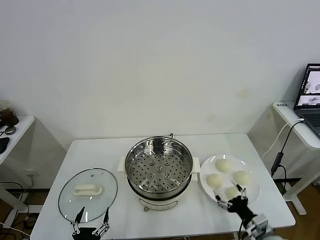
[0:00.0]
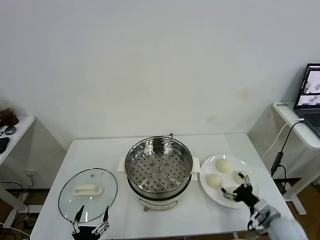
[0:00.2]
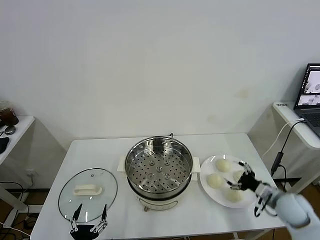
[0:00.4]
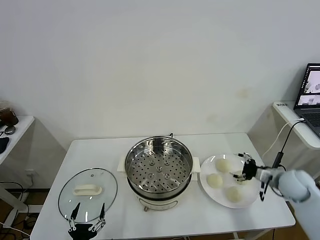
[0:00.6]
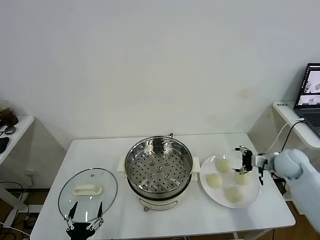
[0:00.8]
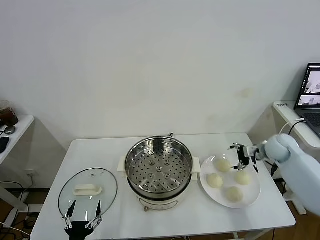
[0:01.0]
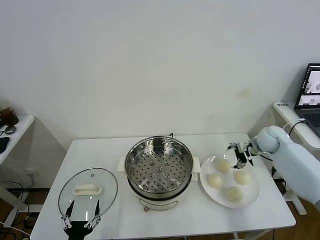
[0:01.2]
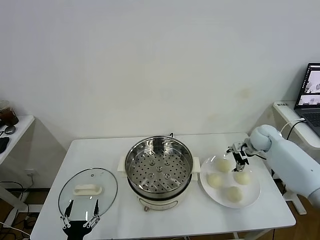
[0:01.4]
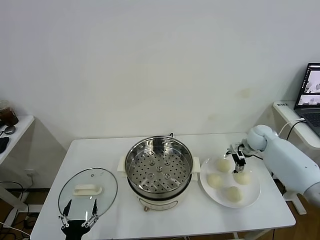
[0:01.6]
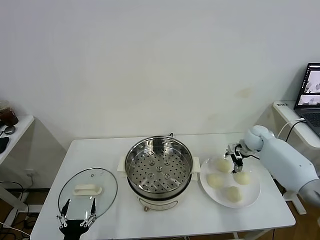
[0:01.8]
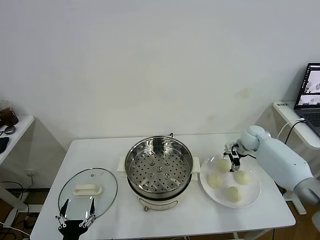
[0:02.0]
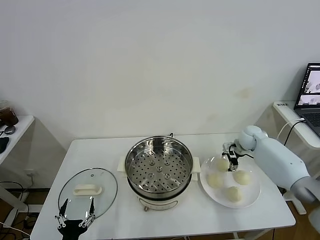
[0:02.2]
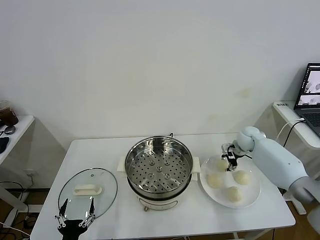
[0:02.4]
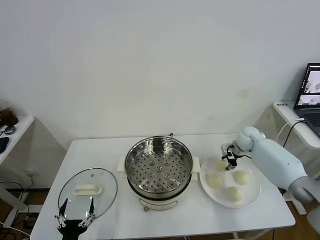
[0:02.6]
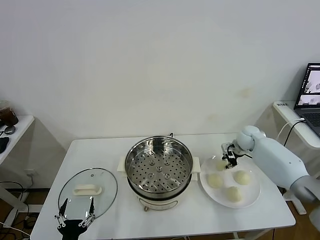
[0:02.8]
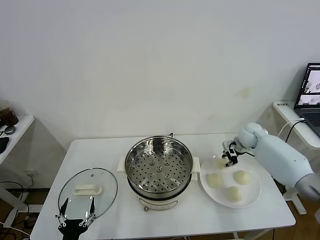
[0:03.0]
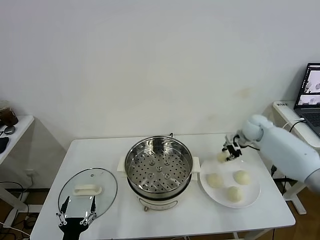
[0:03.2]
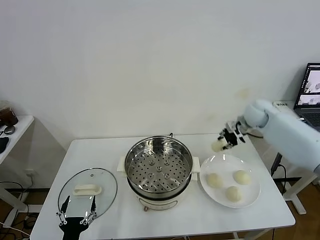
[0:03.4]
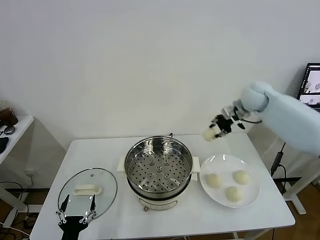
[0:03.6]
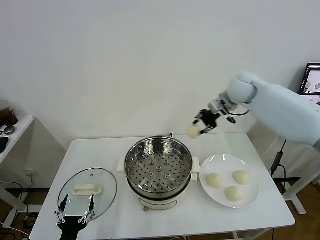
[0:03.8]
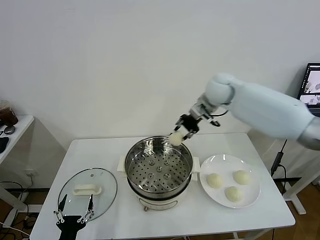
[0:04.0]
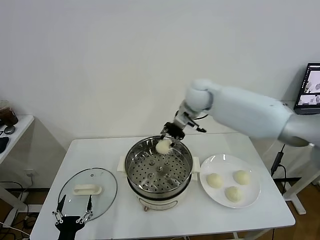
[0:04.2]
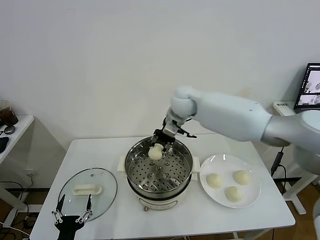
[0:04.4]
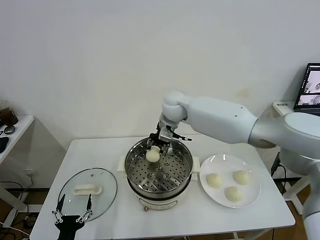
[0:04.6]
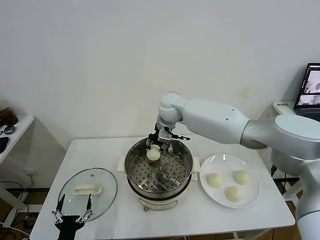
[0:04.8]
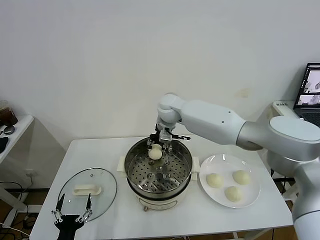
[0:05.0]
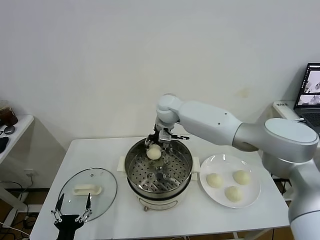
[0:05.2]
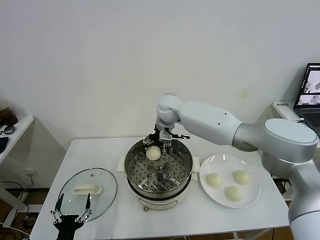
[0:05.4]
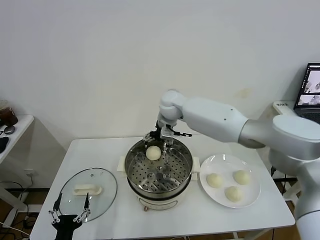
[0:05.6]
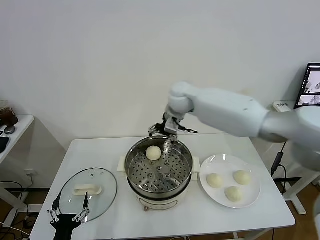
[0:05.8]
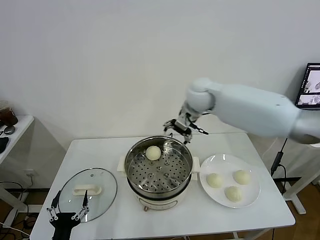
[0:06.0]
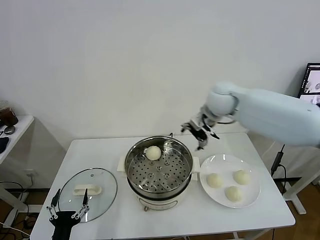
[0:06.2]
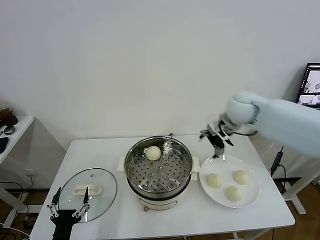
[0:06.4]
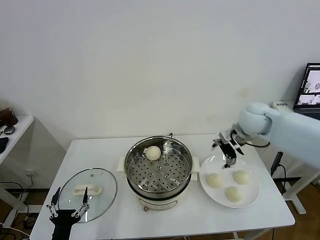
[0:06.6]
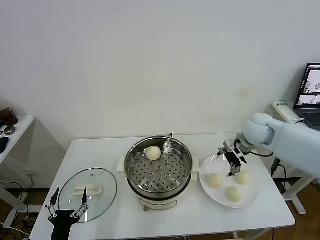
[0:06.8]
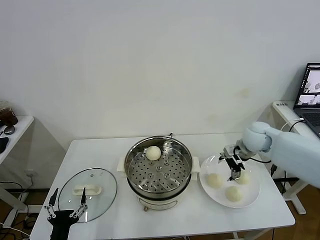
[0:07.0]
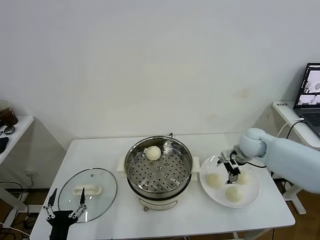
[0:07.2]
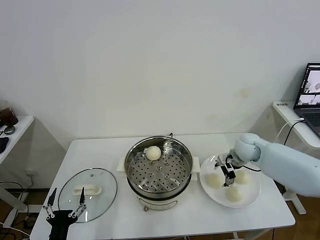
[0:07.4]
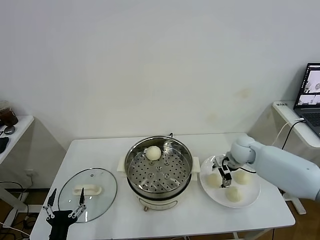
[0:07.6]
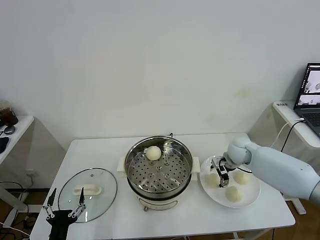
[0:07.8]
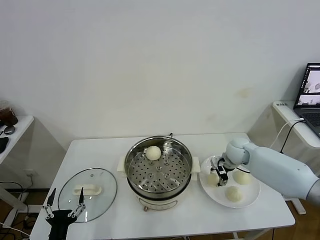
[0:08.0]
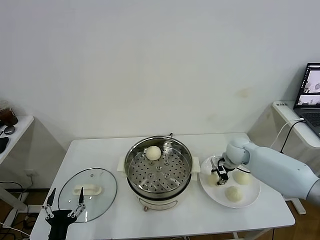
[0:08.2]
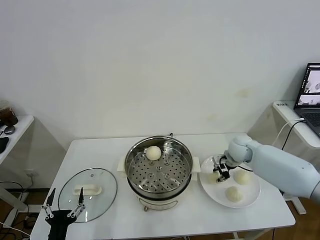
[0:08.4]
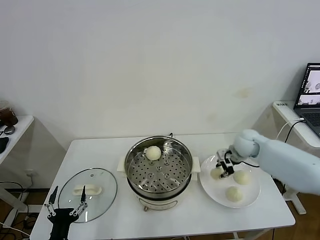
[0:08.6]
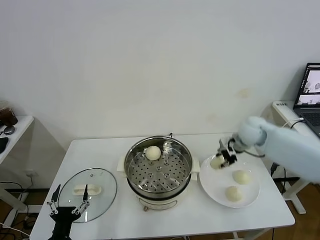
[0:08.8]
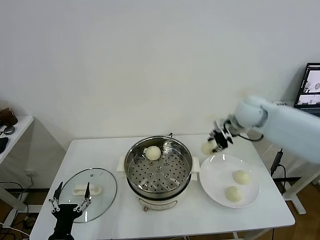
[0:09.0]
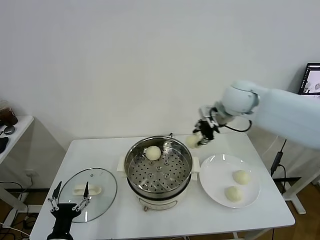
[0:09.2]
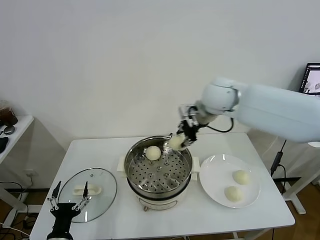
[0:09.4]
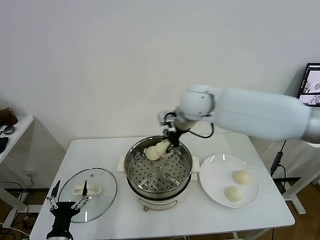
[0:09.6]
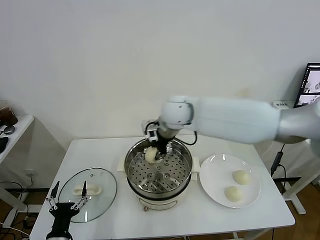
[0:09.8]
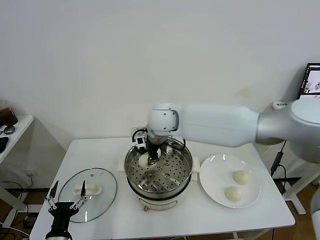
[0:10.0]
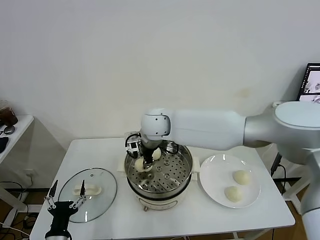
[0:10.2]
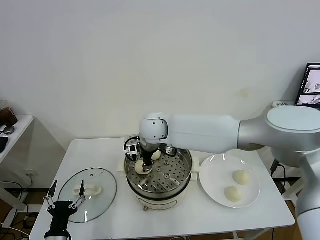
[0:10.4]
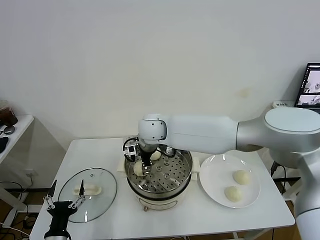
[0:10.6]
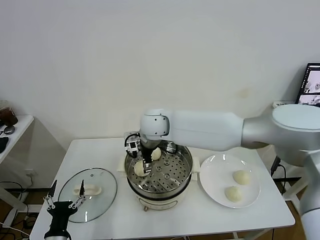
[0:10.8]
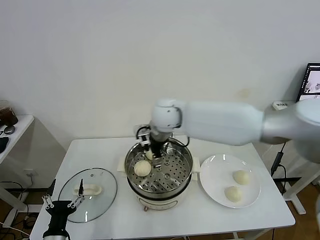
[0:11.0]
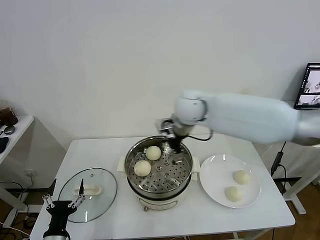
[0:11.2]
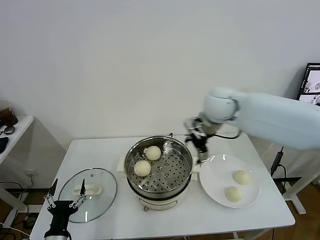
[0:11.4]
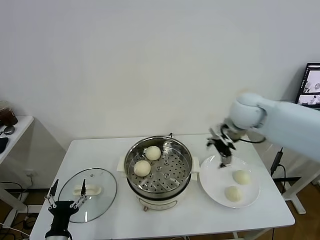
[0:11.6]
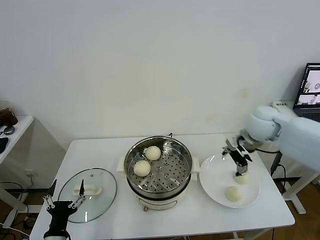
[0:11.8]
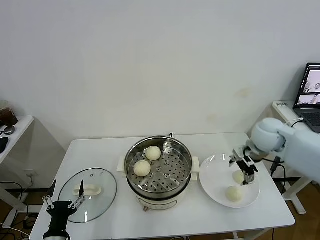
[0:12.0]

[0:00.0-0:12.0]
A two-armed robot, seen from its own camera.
Task of the whole recording: take steamed baozi put them in steamer.
Step, 0:00.0 to 0:02.6: Grasp the baozi in the plate with right gripper.
Step, 0:02.8 to 0:05.4: Place the baozi on the steamer with right gripper.
Step, 0:05.8 to 0:08.2: Grasp the baozi in the plate with right gripper.
Step, 0:08.4 to 0:10.8: Place the baozi on the steamer with right gripper.
0:01.6 to 0:03.0: The right gripper closes its fingers.
0:03.0 to 0:04.4: The right gripper heads to the left and upward, covering approximately 35 cm.
0:04.4 to 0:06.0: The right gripper opens up.
0:06.0 to 0:07.6: The right gripper moves downward and to the right, about 30 cm.
0:07.6 to 0:09.0: The right gripper shifts some 15 cm upward, and closes its fingers.
0:09.0 to 0:10.4: The right gripper is displaced to the left by some 30 cm.
0:10.4 to 0:12.0: The right gripper goes roughly 35 cm to the right, and opens up.

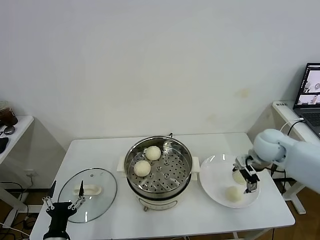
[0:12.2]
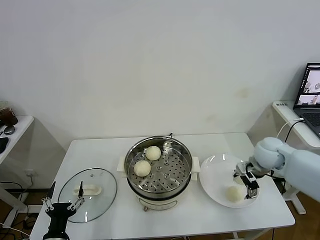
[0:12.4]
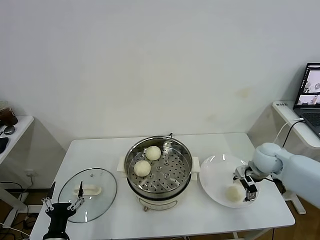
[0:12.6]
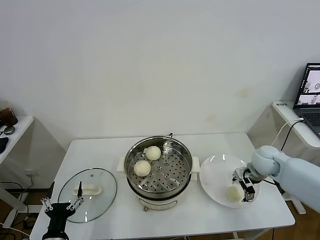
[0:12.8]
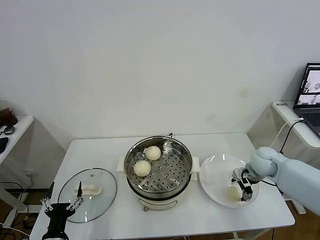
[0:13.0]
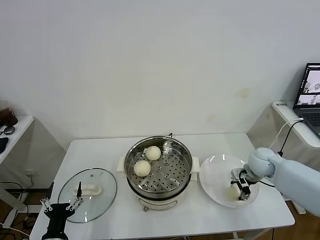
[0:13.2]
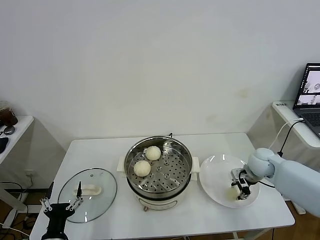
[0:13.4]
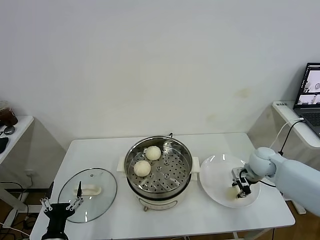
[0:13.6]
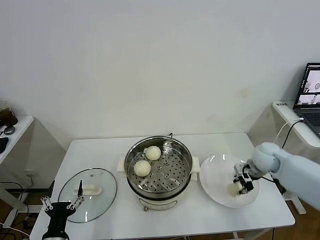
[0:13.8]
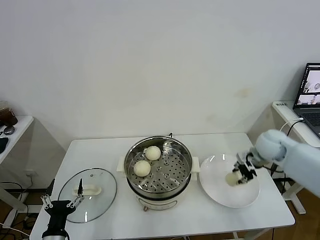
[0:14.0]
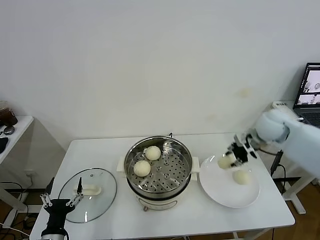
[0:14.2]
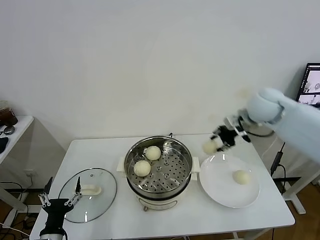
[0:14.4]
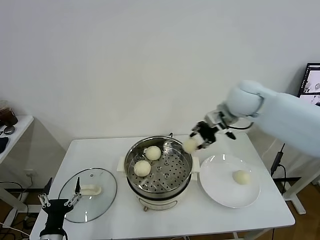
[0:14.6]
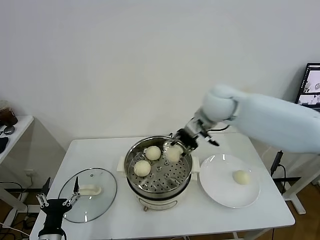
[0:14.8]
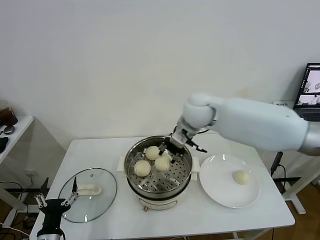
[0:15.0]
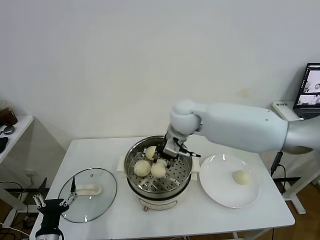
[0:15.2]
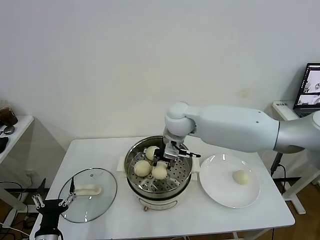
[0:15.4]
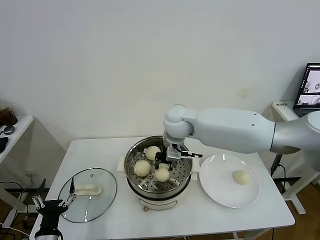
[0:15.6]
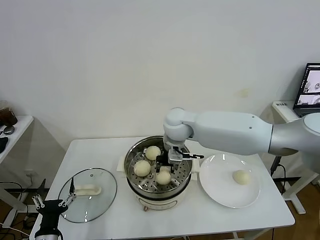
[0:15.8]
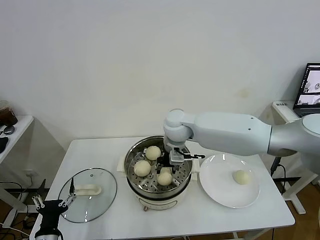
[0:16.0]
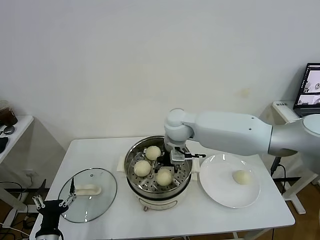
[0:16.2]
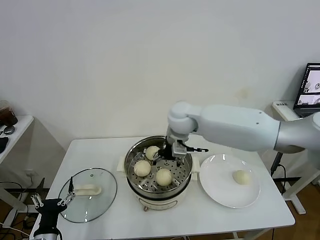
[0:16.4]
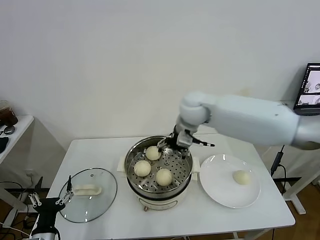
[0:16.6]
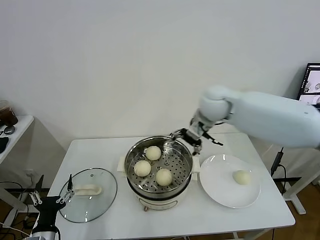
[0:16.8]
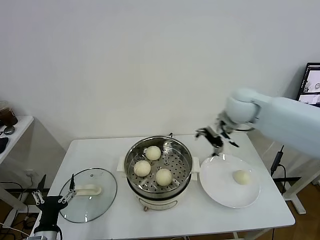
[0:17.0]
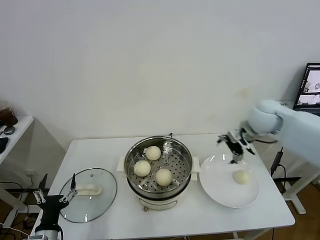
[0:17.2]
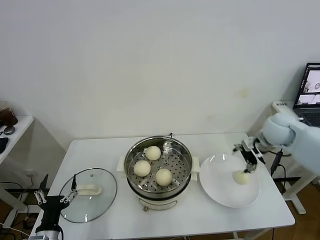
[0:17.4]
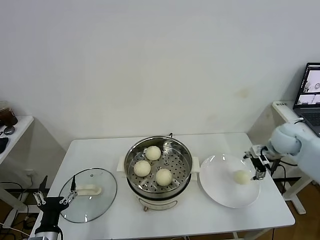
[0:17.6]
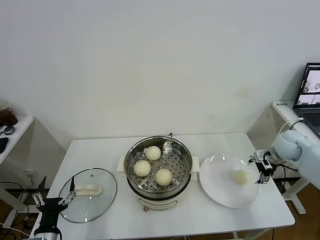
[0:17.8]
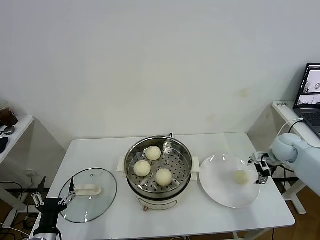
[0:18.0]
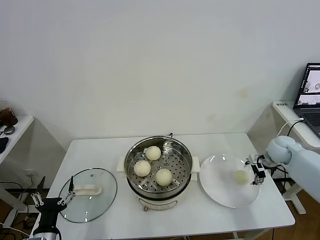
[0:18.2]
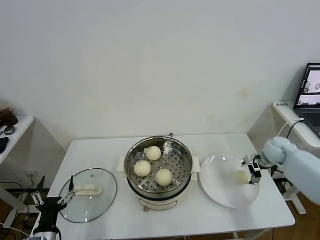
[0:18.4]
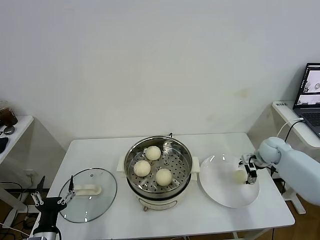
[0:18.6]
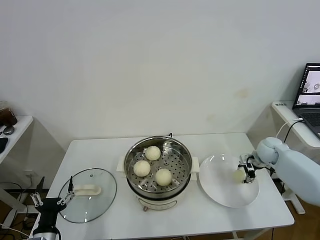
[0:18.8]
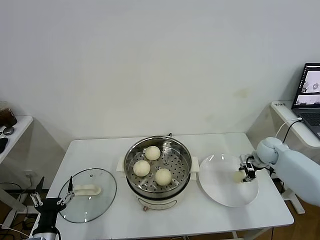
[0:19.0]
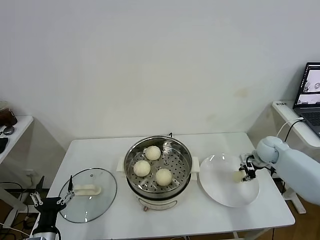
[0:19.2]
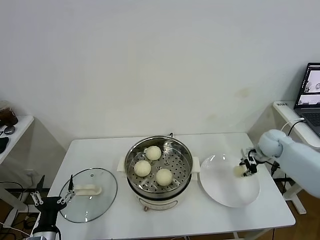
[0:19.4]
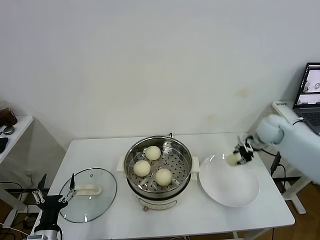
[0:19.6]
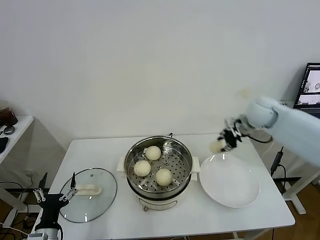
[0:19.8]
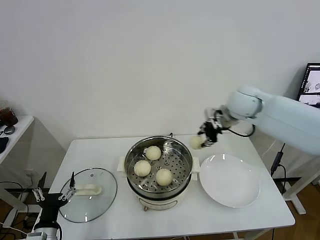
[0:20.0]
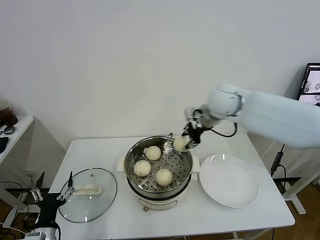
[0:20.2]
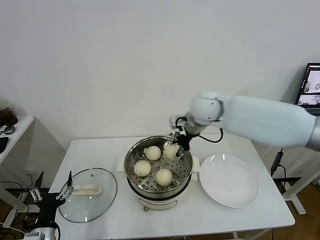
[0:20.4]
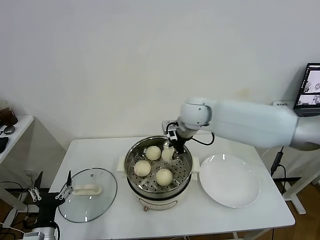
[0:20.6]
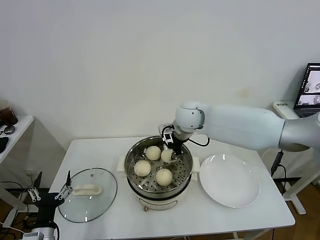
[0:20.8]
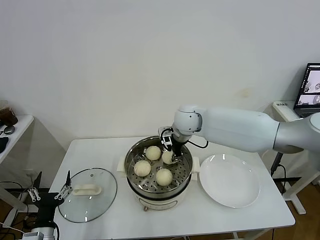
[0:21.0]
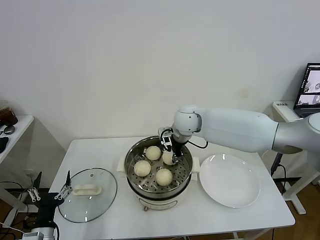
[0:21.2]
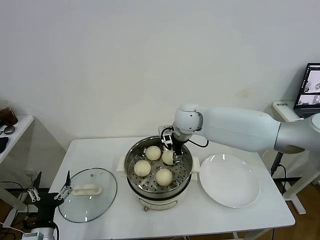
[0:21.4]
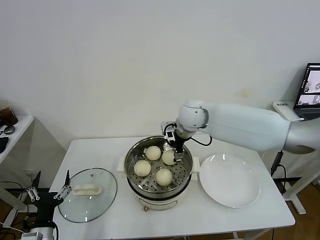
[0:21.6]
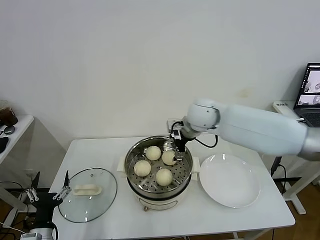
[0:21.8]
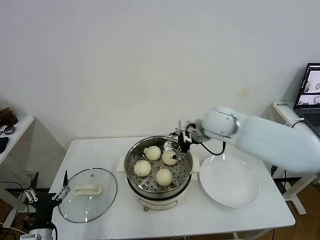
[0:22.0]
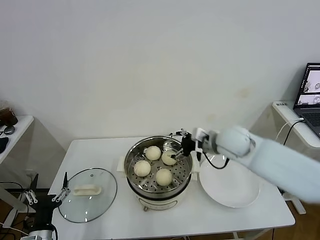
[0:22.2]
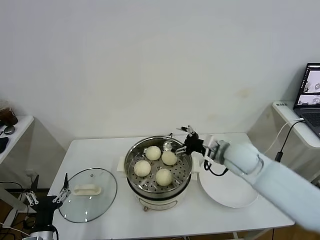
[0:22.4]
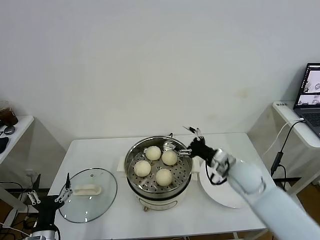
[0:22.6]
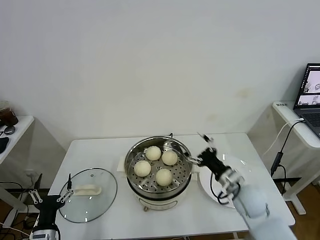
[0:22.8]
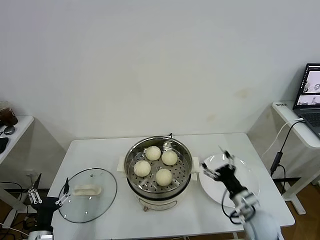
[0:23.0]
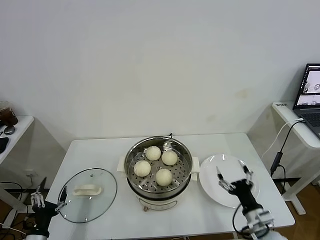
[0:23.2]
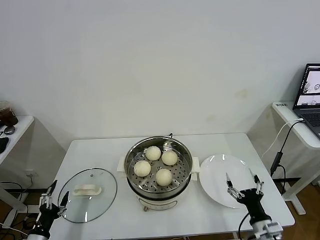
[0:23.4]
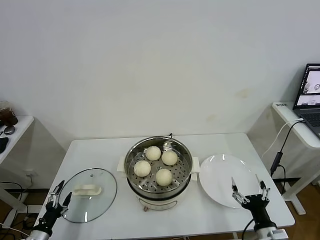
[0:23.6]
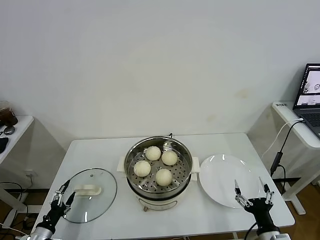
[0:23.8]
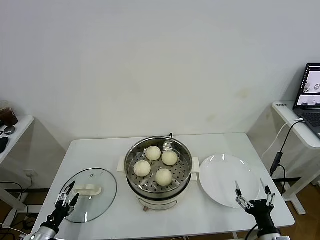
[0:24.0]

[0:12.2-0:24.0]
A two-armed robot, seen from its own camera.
Task of the whole recording: take steamed baozi put them in steamer.
Step, 0:12.2 to 0:13.6: Grasp the baozi in the plate with right gripper.
Step, 0:13.8 to 0:16.2: Place the baozi on the steamer with right gripper.
Step, 0:16.4 to 0:19.2: Grasp the baozi in the plate with right gripper.
Step, 0:19.4 to 0:21.8: Place the baozi on the steamer with right gripper.
0:12.2 to 0:13.6: The right gripper goes about 10 cm downward, and closes.
0:13.6 to 0:15.2: The right gripper moves to the left and upward, some 35 cm.
0:15.2 to 0:16.6: The right gripper opens its fingers.
0:16.6 to 0:18.2: The right gripper goes some 40 cm to the right and downward.
0:18.2 to 0:19.6: The right gripper goes about 5 cm upward and to the left, and closes.
0:19.6 to 0:21.0: The right gripper shifts approximately 30 cm to the left.
0:21.0 to 0:22.6: The right gripper goes some 25 cm to the right, backward and downward, and opens its fingers.
0:22.6 to 0:24.0: The left gripper heads to the left and downward, covering some 15 cm. The right gripper travels backward and downward by some 30 cm.
